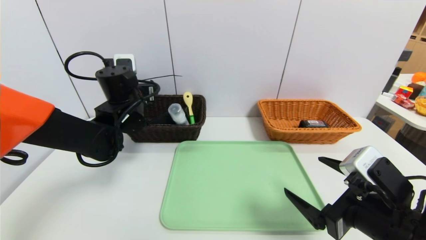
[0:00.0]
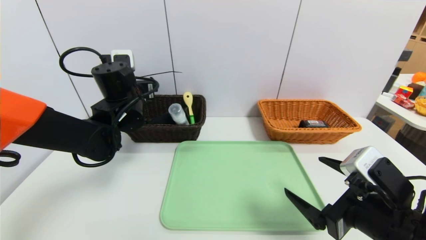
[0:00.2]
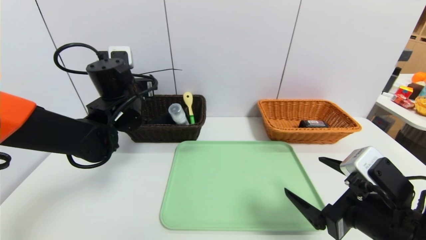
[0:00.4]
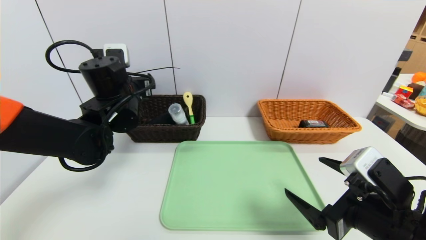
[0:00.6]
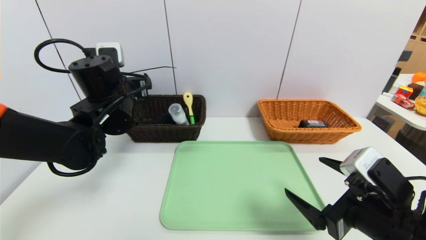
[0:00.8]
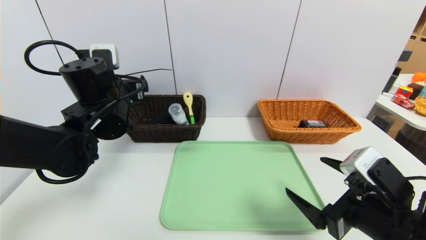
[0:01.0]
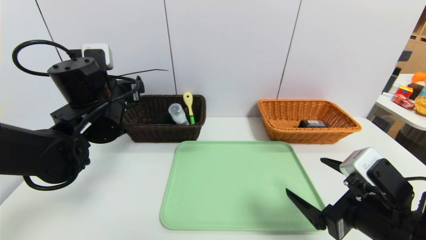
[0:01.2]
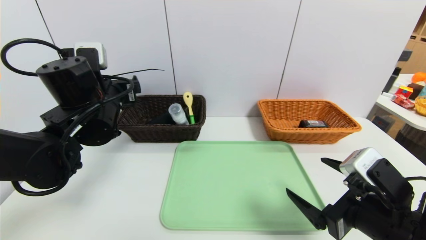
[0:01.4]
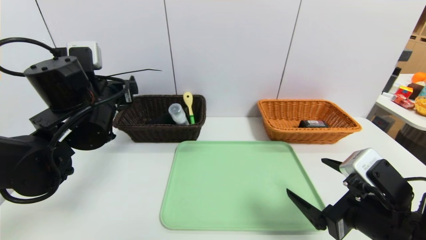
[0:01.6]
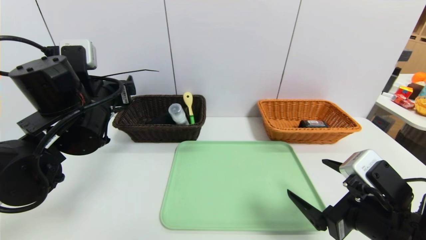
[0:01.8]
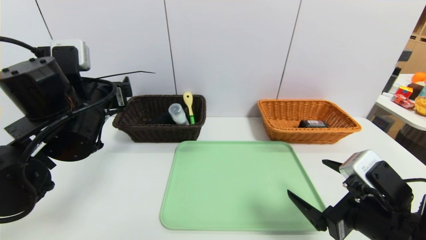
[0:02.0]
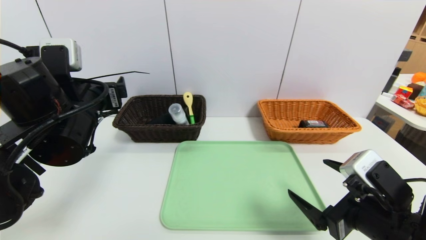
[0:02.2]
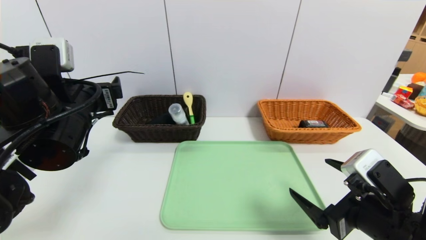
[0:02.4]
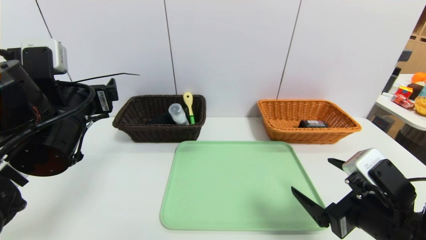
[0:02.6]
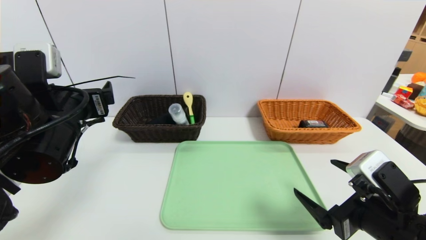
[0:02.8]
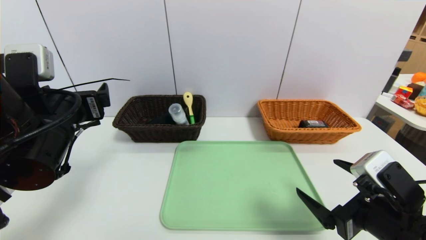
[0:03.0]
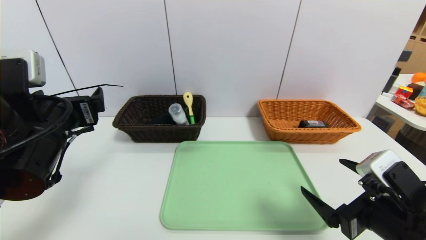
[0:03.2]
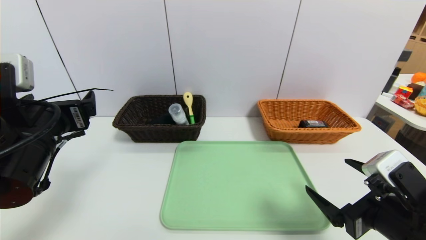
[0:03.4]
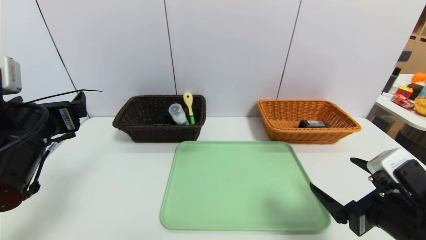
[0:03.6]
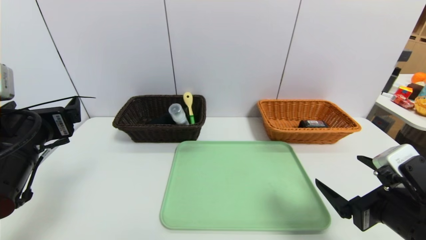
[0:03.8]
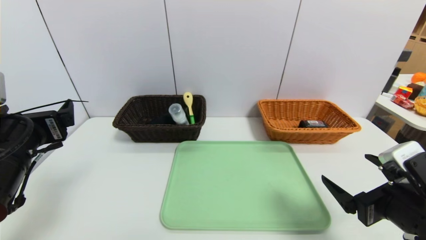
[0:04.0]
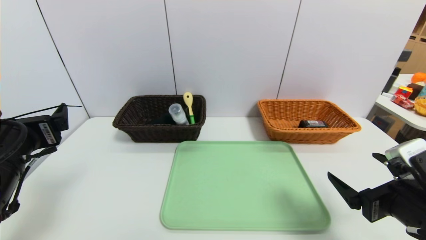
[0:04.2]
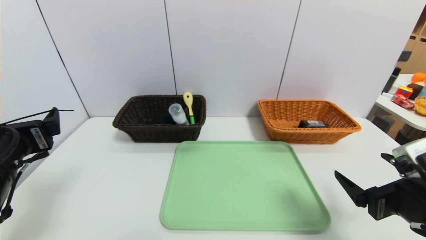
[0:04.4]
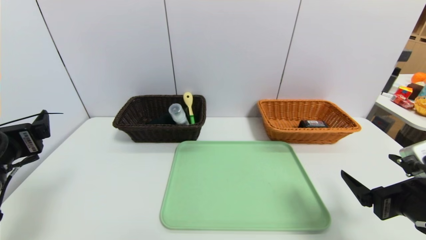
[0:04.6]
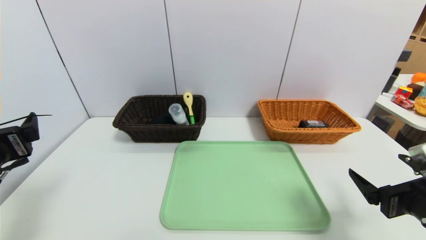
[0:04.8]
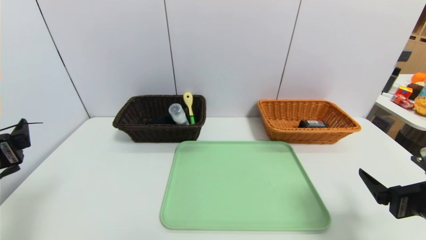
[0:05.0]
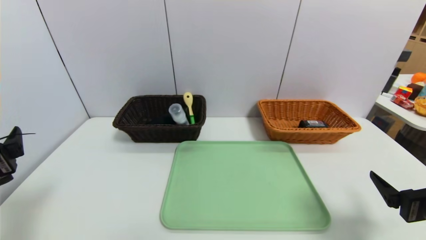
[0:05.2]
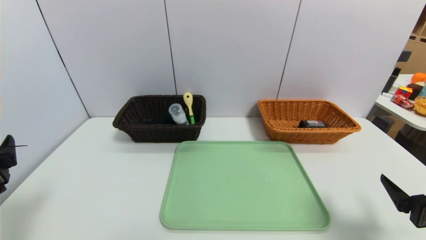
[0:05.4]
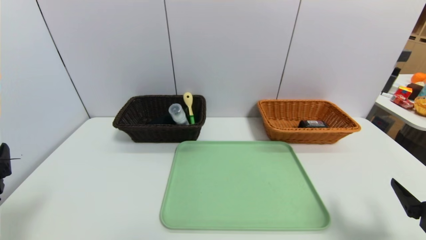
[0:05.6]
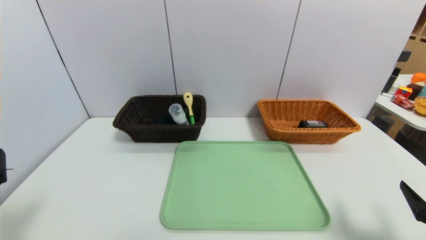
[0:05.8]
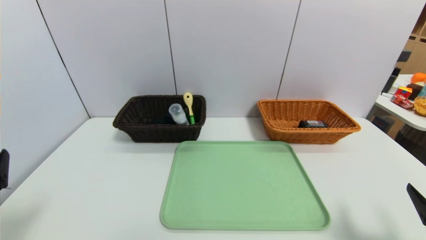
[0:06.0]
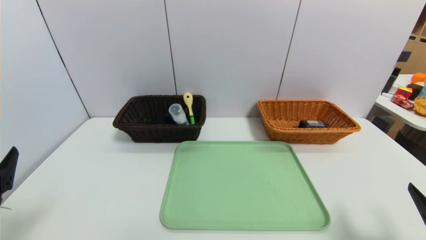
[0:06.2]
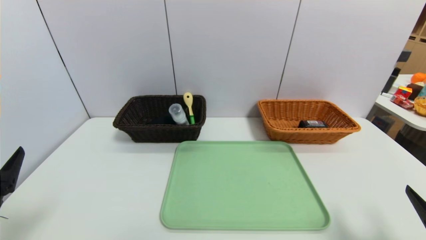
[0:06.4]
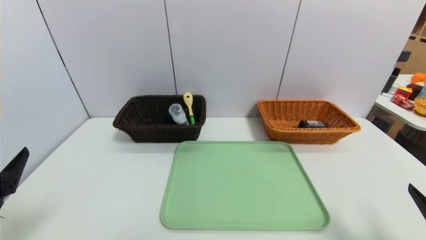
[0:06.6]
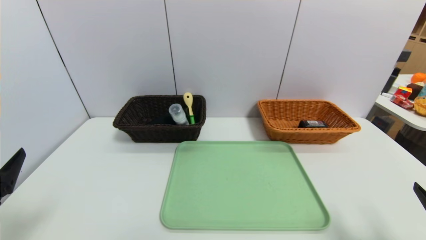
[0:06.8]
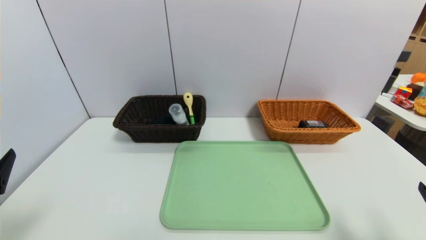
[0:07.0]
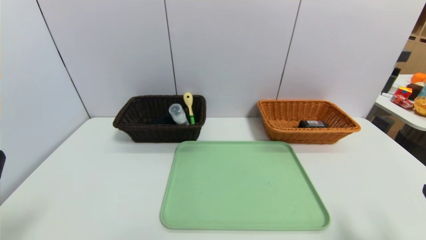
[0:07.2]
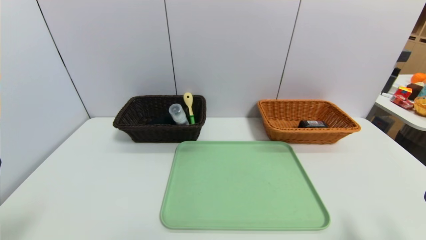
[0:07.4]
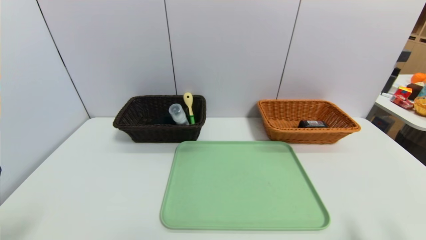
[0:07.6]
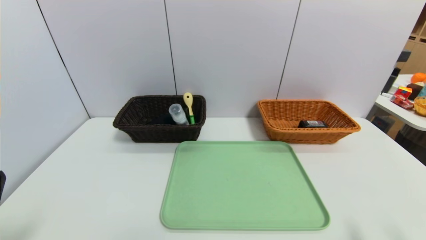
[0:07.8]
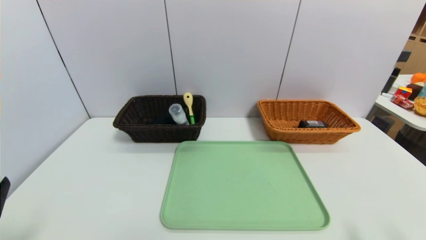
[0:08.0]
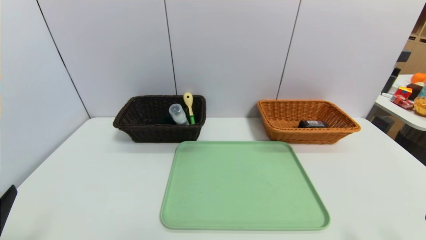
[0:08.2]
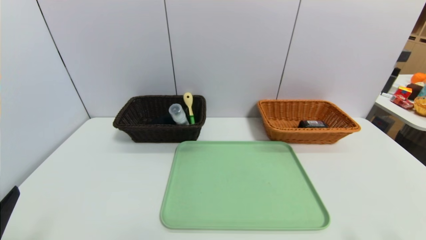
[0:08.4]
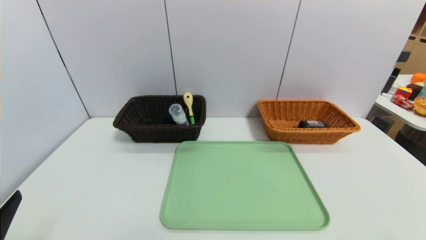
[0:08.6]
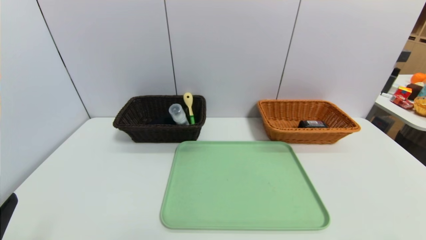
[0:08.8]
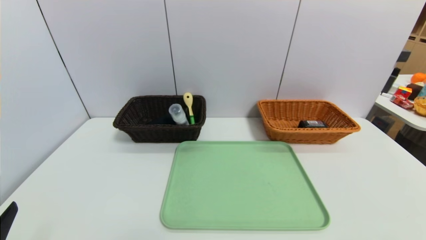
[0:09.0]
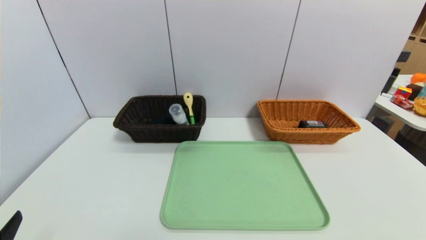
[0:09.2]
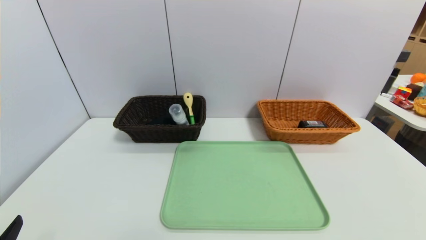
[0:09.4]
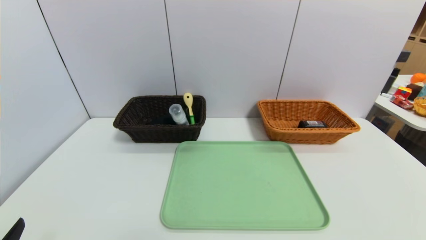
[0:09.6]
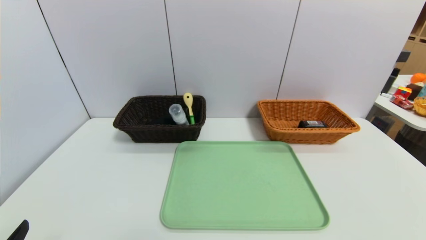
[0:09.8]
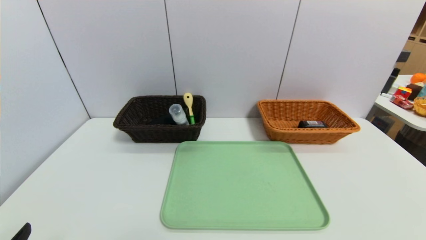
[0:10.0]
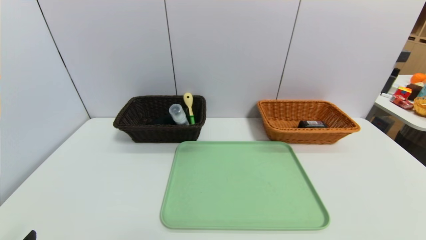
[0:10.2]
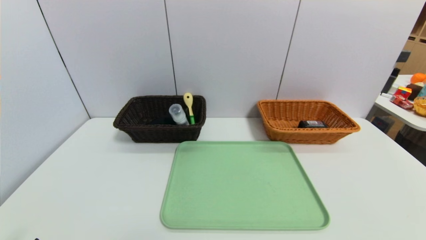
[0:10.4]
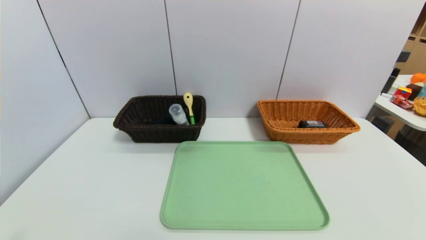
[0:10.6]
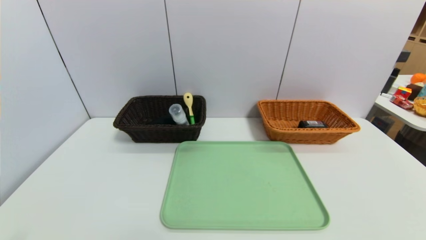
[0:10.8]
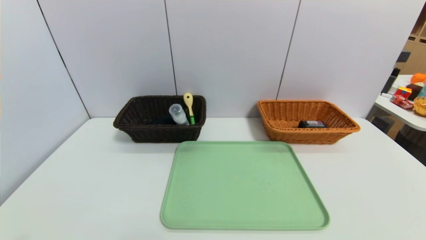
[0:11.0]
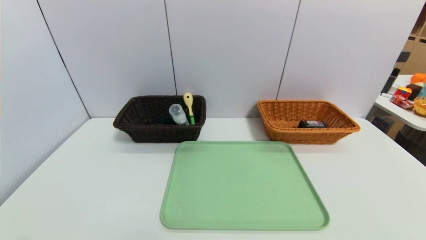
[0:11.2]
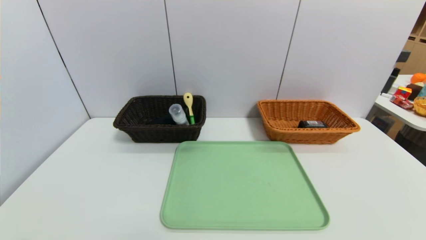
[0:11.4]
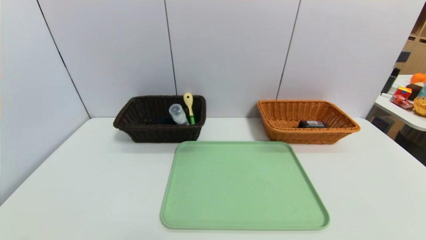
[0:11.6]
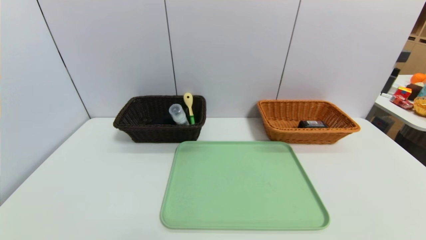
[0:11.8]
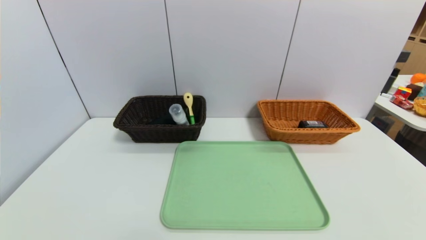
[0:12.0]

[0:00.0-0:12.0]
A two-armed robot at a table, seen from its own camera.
Task of the whole recording: place the food in the right basket with the right gripper, and place the non food items in the left basket with the left gripper.
0:00.0 to 0:01.6: The left gripper is displaced backward by about 10 cm.
0:01.6 to 0:03.0: The left gripper heads backward, covering about 5 cm.
0:03.0 to 0:04.4: The left gripper is displaced to the left by some 5 cm.
0:04.4 to 0:06.0: The left gripper shifts about 10 cm backward. Meanwhile the right gripper travels backward and to the right by about 10 cm.
0:06.0 to 0:07.6: The grippers make only small movements.
0:07.6 to 0:09.0: The left gripper shifts by roughly 5 cm.

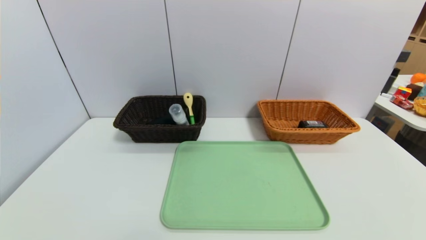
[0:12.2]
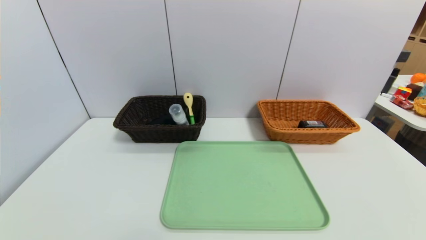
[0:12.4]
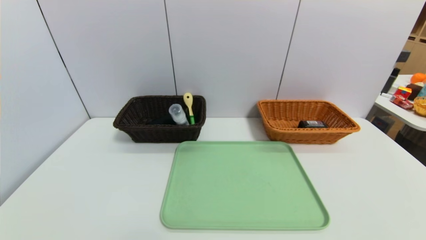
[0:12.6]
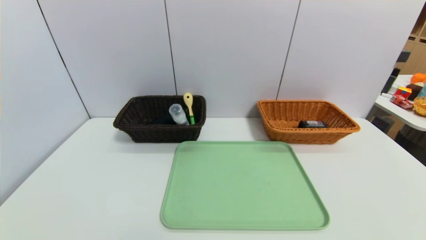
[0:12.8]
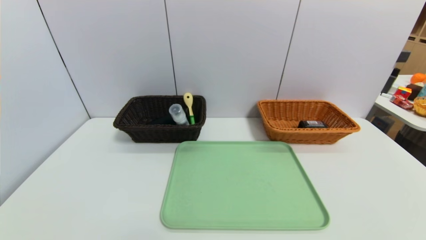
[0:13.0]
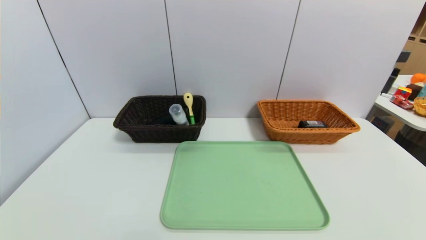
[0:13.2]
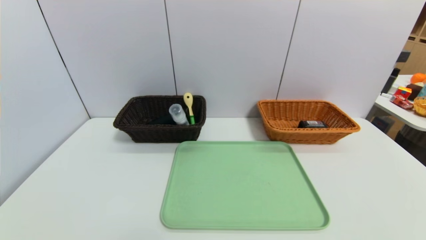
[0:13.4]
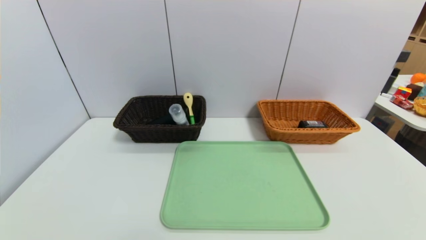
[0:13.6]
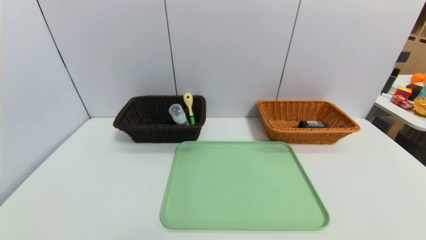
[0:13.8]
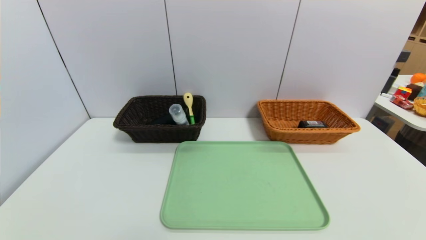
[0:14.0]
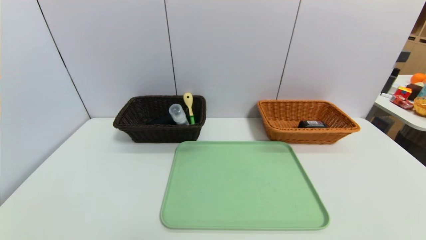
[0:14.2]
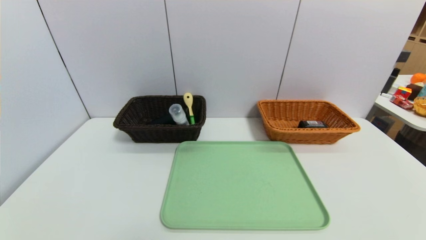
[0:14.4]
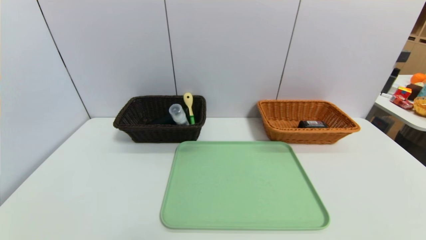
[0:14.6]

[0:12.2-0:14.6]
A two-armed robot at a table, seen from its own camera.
Task of the whole recording: place the food in the right basket with the right gripper, and place the non food items in the left basket with the left gripper.
0:13.4 to 0:14.6: The two grippers keep their place.
